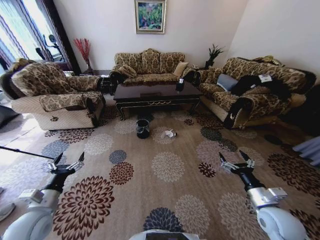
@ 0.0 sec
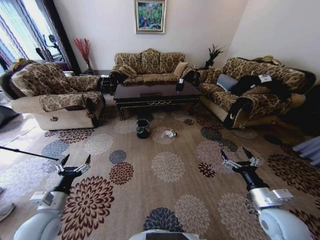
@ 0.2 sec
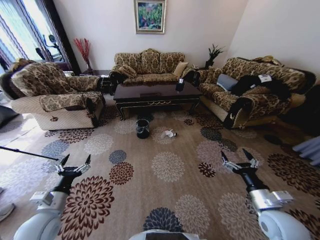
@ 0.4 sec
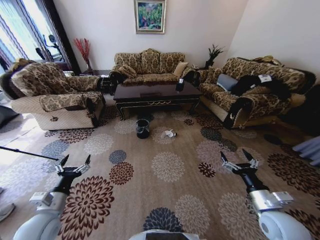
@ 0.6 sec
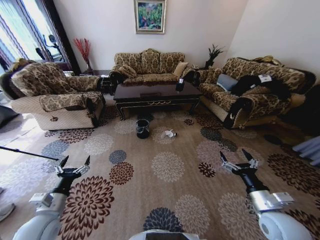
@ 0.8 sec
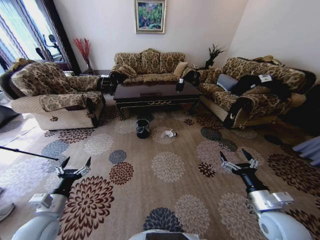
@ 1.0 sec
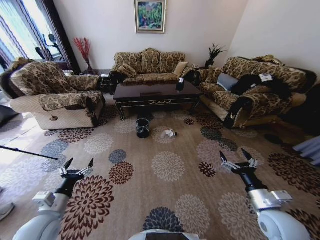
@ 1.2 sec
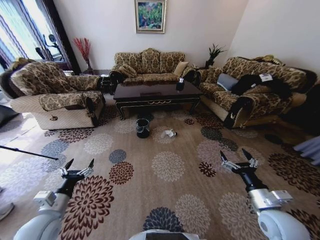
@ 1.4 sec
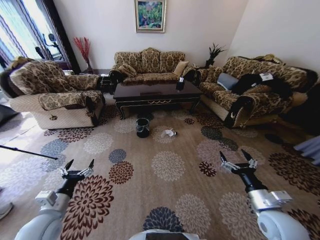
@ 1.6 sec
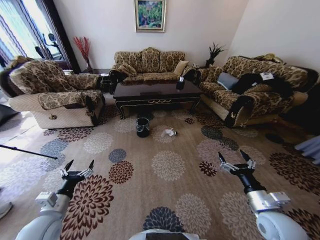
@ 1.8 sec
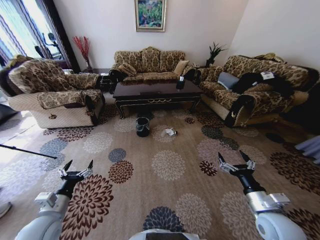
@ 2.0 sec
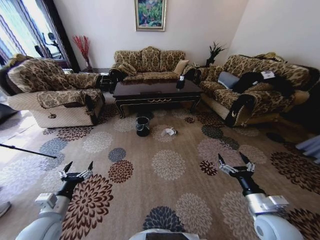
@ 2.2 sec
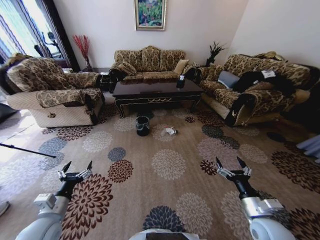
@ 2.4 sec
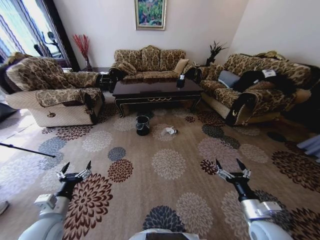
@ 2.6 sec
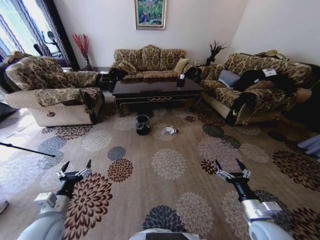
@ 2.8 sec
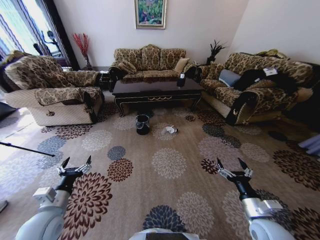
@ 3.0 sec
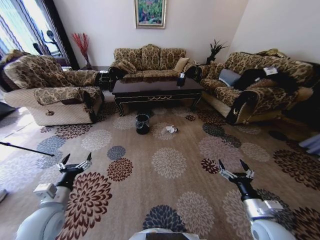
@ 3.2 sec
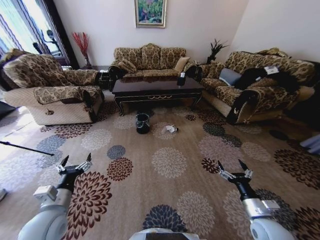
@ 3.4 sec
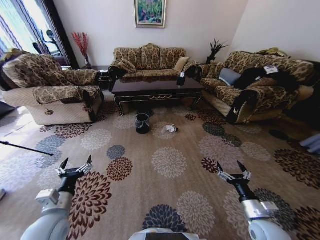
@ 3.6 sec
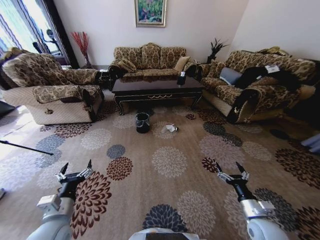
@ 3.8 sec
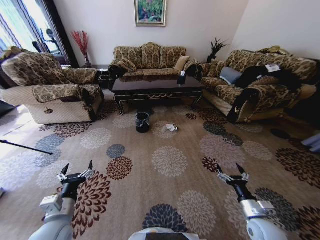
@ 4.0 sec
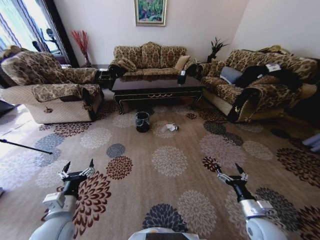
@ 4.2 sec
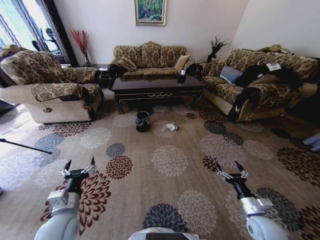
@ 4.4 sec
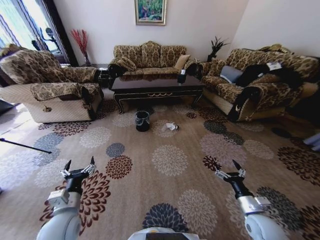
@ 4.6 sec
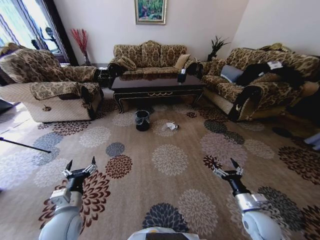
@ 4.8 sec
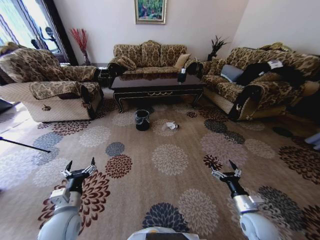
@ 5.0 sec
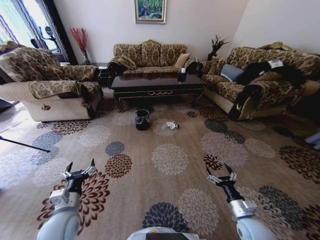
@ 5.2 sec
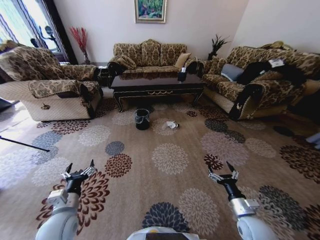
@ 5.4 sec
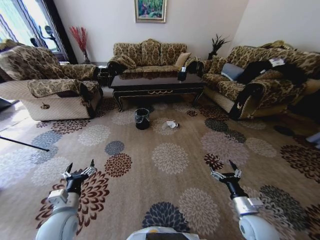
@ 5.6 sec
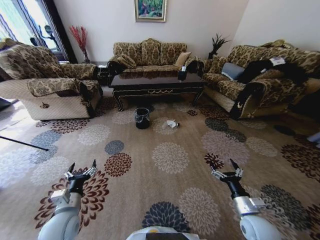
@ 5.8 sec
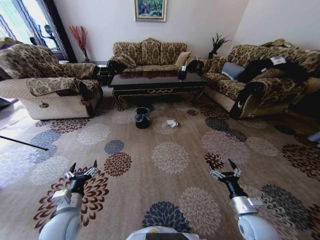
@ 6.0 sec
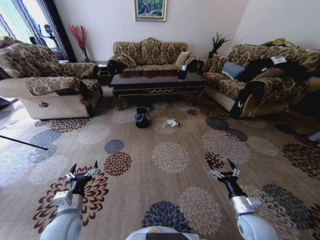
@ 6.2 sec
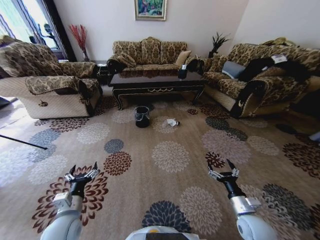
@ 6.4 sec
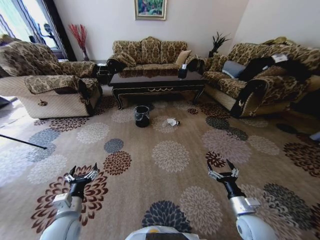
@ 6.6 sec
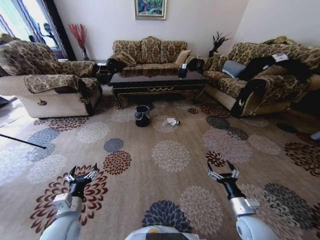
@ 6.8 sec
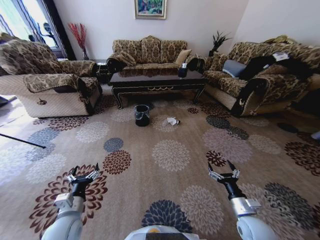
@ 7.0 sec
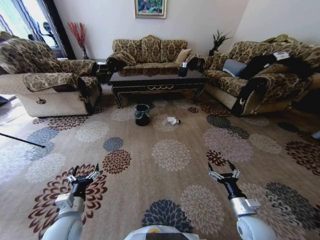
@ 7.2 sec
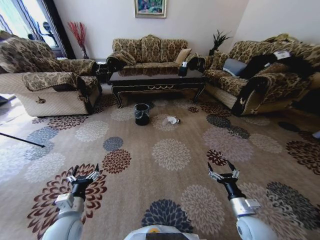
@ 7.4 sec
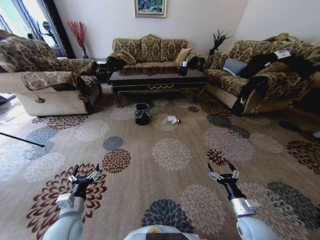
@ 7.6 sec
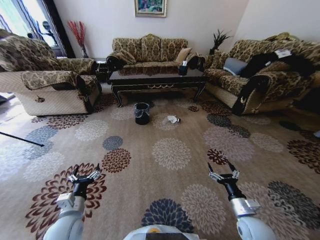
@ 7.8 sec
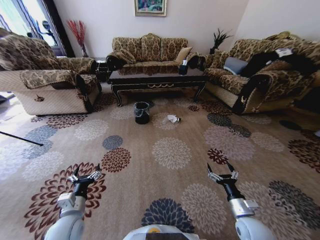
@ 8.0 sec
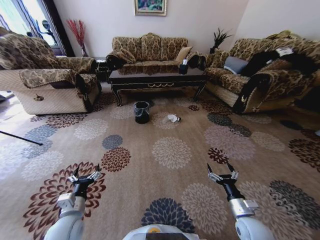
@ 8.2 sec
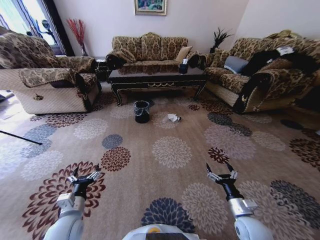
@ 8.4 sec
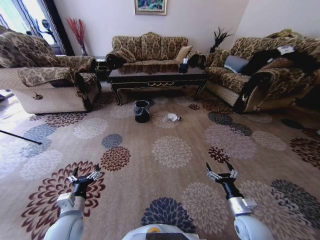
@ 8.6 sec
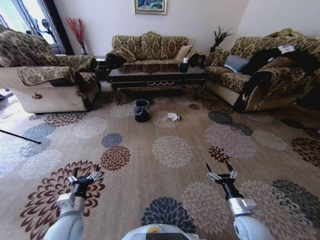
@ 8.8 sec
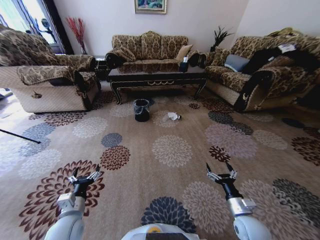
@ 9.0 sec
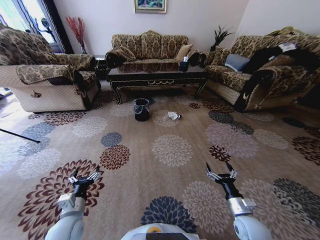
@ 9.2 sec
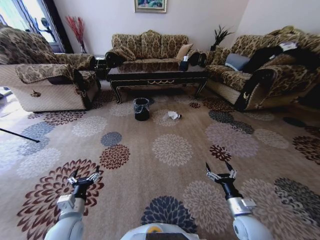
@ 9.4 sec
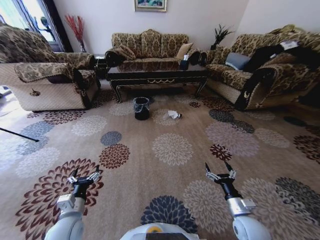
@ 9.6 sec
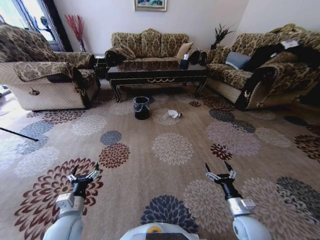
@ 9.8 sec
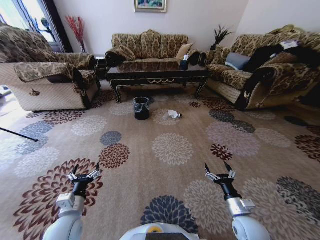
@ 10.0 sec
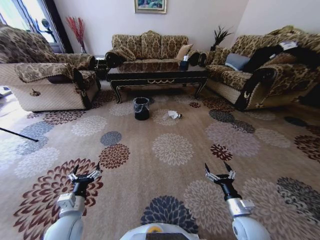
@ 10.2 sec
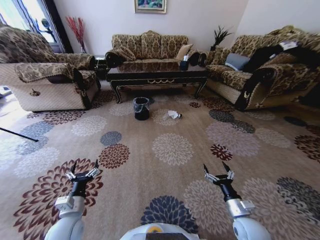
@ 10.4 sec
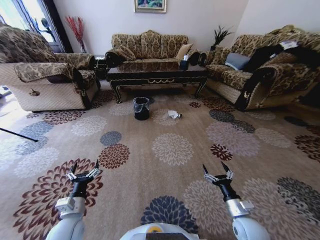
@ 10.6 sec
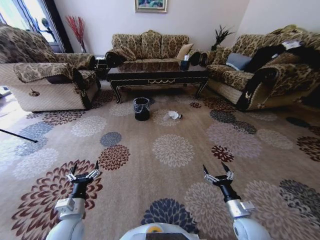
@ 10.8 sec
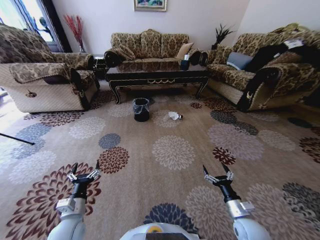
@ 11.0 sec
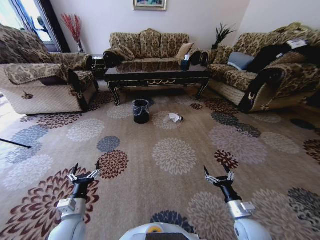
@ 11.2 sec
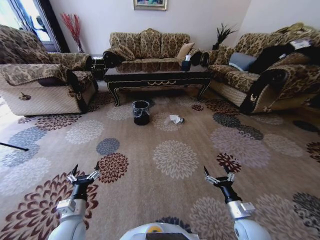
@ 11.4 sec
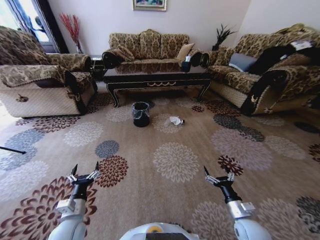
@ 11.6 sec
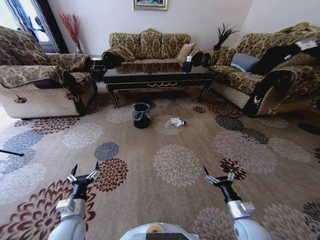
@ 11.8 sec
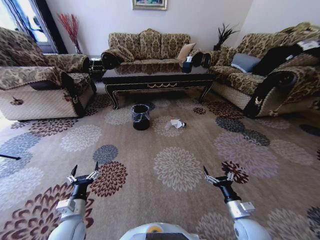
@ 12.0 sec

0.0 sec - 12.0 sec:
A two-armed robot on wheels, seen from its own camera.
Task of the whole recording: Move to the front of the table and pick up the trash from the floor, then place it into the trash bin.
3.0 sec - 4.4 sec: The left gripper travels to the right by about 5 cm. The right gripper goes some 5 cm downward.
9.0 sec - 10.4 sec: There are only small adjustments of the grippers.

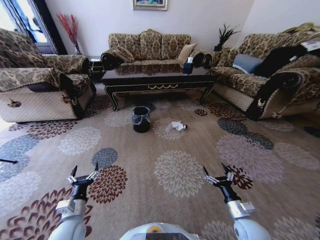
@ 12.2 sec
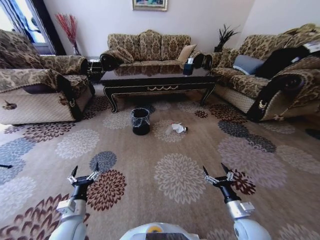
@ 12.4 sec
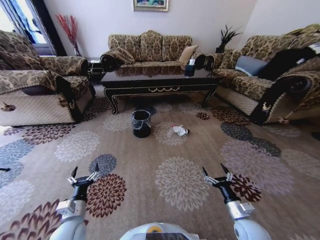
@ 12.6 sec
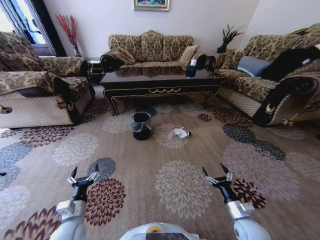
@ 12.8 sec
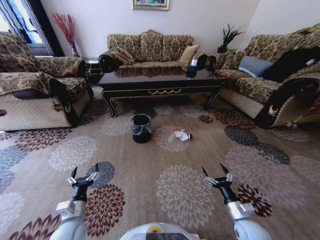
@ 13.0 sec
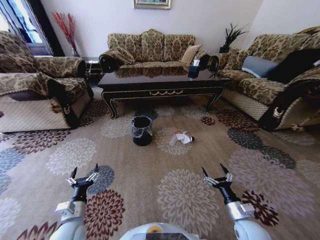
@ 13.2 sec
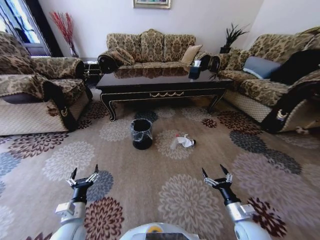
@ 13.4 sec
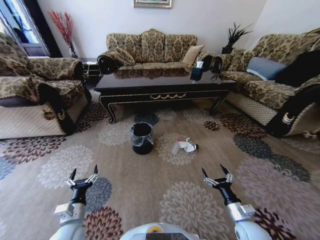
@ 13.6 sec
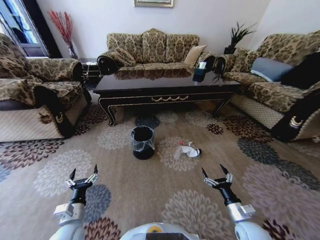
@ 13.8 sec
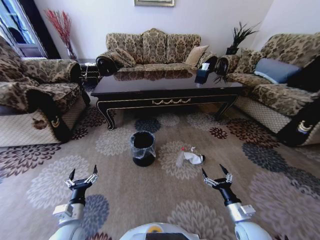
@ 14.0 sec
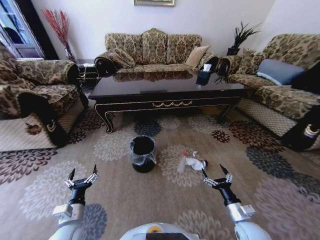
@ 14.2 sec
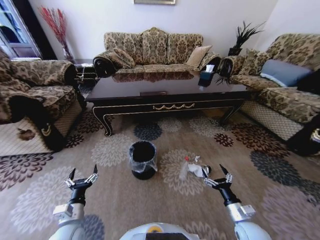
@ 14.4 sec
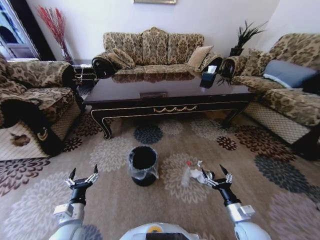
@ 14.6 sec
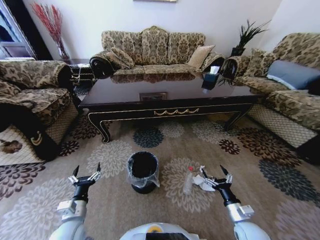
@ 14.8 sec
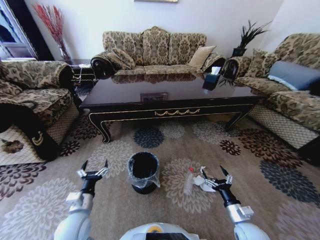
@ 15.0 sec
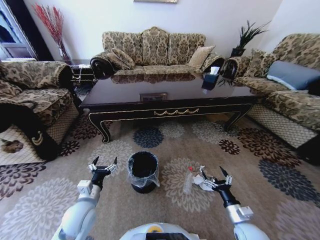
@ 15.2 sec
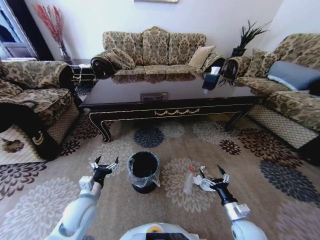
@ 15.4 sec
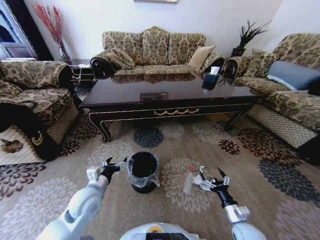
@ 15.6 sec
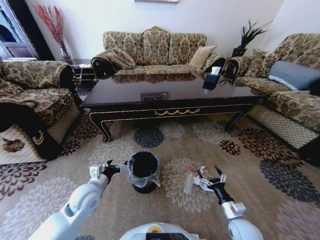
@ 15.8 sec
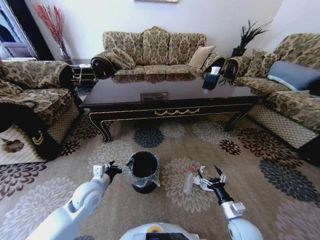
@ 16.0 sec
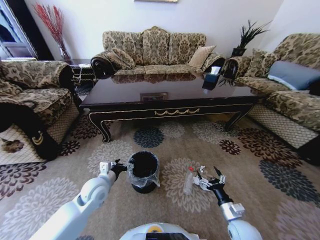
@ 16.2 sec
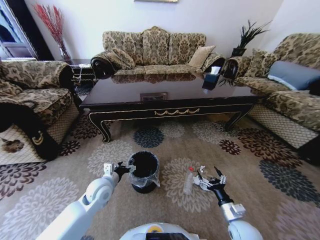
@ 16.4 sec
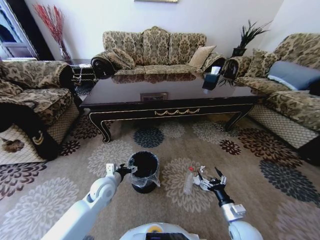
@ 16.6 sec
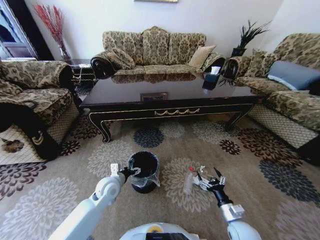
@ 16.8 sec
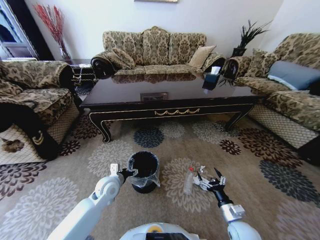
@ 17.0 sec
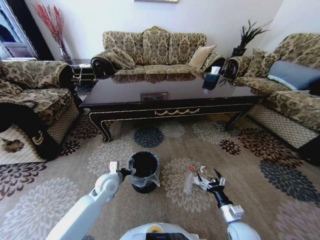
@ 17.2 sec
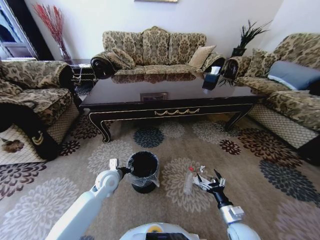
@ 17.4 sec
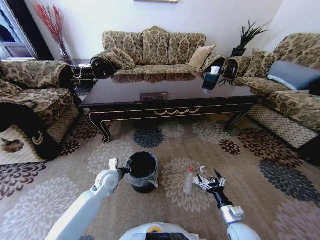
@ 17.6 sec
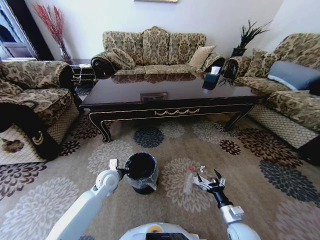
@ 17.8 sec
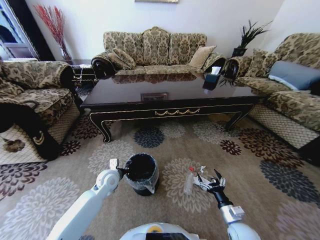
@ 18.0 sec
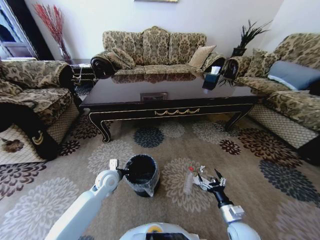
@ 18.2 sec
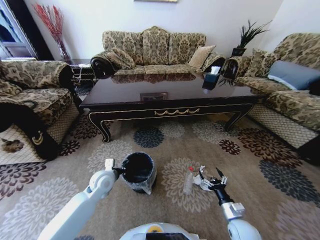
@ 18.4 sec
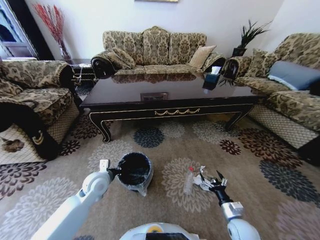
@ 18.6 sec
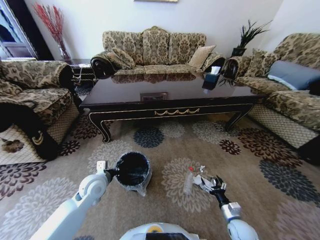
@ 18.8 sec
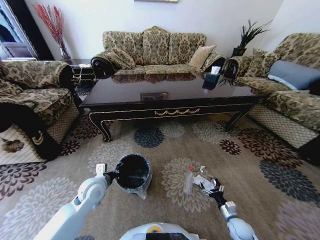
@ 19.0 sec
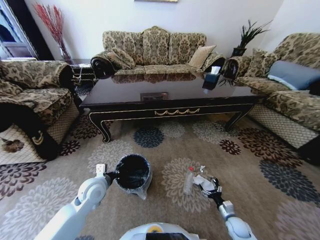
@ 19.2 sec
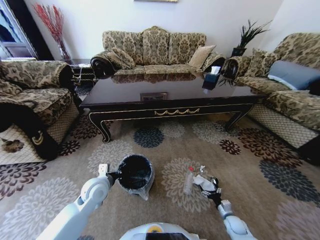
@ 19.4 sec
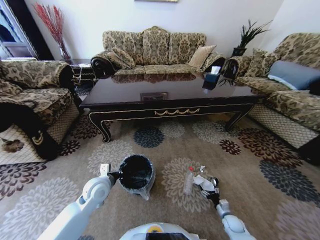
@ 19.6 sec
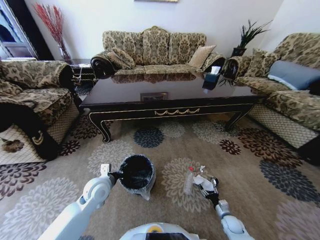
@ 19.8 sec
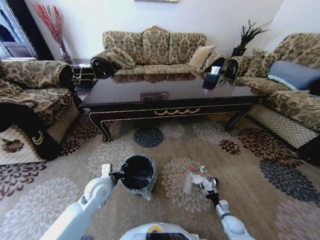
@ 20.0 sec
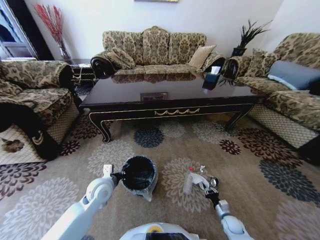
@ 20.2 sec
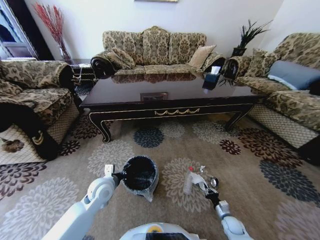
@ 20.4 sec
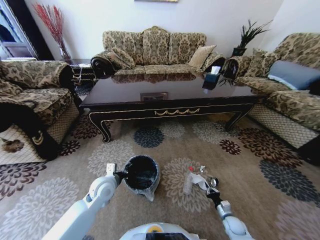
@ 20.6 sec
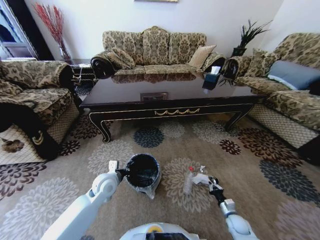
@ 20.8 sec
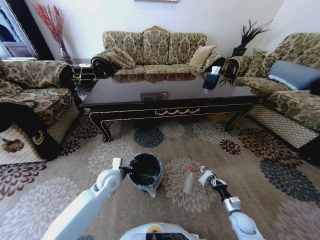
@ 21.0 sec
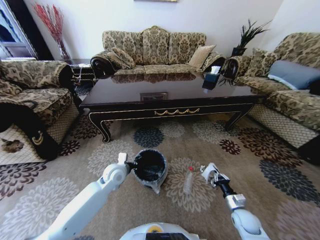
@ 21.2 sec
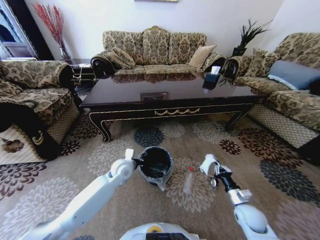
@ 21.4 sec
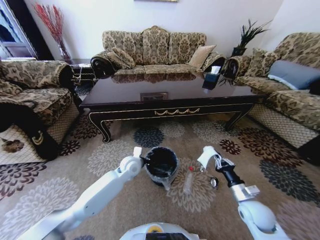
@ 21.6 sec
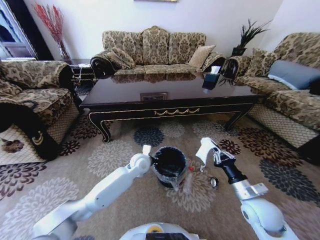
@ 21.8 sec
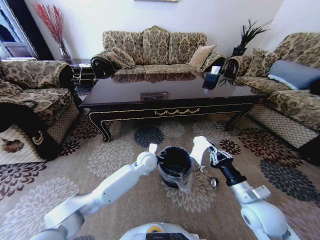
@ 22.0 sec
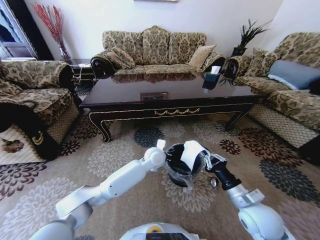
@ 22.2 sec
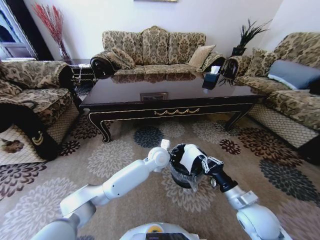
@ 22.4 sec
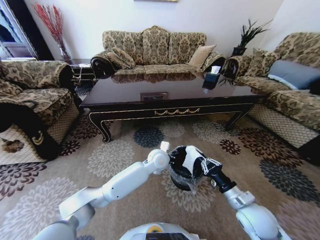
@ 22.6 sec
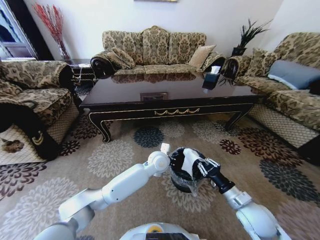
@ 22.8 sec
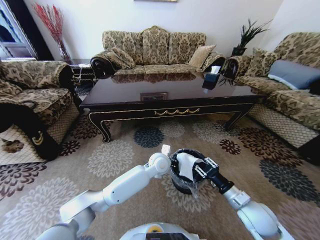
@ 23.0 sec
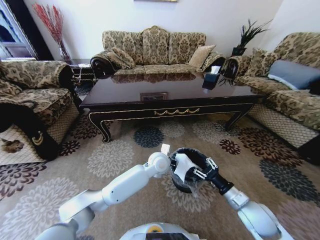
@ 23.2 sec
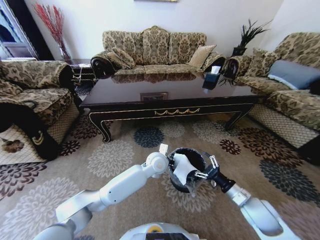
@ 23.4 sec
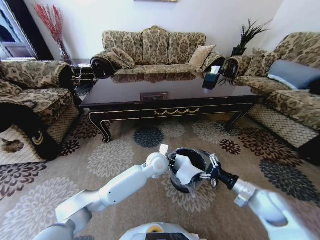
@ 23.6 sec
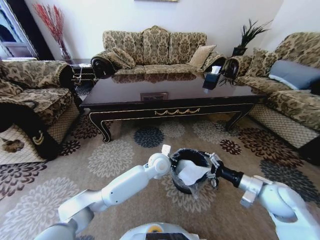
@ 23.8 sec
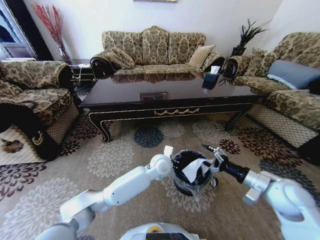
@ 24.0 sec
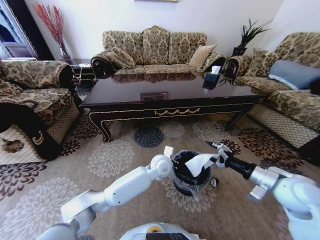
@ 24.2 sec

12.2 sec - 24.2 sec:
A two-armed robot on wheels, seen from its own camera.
Task of the whole recording: Move to the front of the table and pick up the trash from the floor, then place it into the trash bin.
13.8 sec - 15.2 sec: The left gripper heads forward, covering about 5 cm.
15.2 sec - 16.6 sec: The left gripper is displaced forward by roughly 10 cm.
16.6 sec - 18.2 sec: The left gripper closes up.
18.2 sec - 19.8 sec: The left gripper changes place by roughly 5 cm; the right gripper moves downward and to the right, roughly 15 cm.
19.8 sec - 21.2 sec: The right gripper heads upward, covering approximately 15 cm, and closes up. The left gripper shifts about 10 cm forward and to the right.
21.2 sec - 22.6 sec: The left gripper is displaced to the right by some 20 cm. The right gripper shifts roughly 20 cm upward and to the left.
22.6 sec - 24.2 sec: The right gripper goes roughly 15 cm upward and to the right, and opens up.
